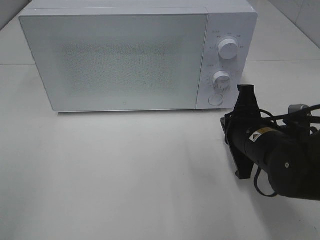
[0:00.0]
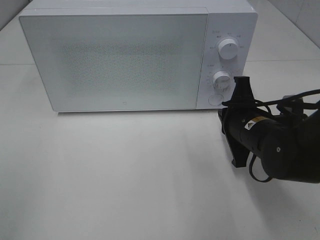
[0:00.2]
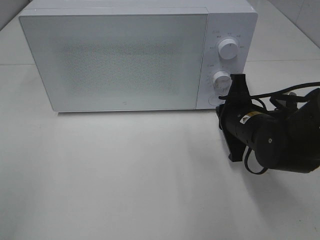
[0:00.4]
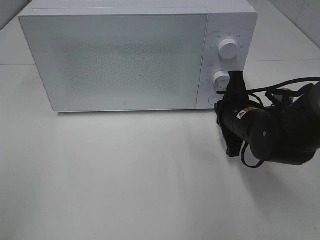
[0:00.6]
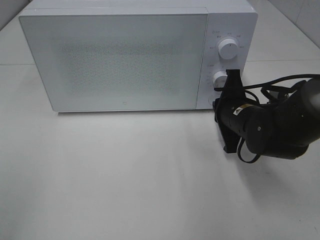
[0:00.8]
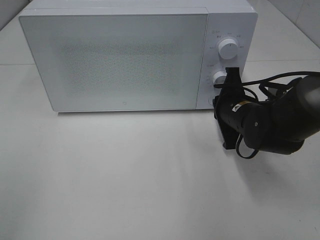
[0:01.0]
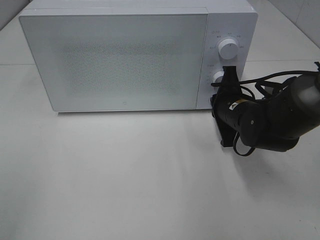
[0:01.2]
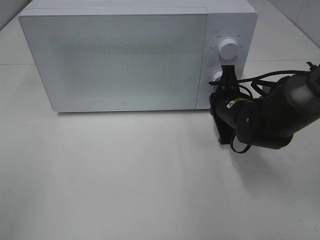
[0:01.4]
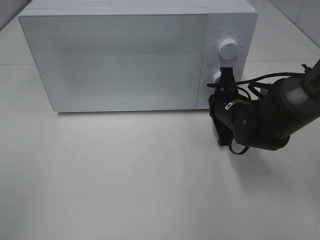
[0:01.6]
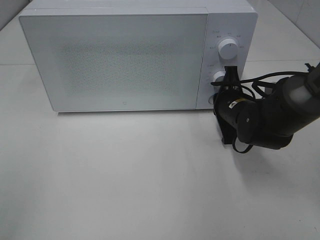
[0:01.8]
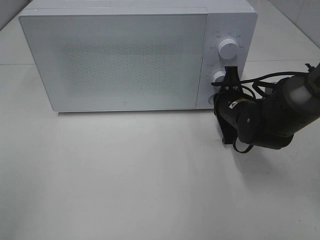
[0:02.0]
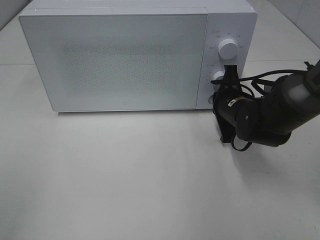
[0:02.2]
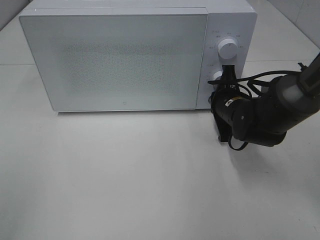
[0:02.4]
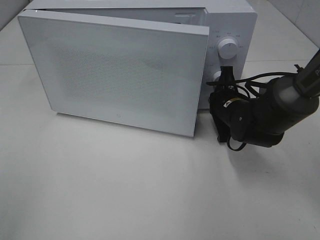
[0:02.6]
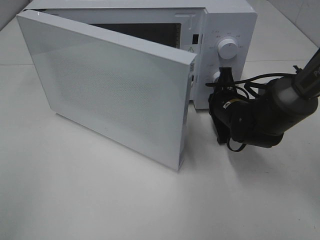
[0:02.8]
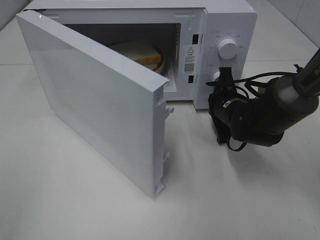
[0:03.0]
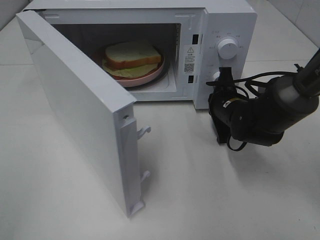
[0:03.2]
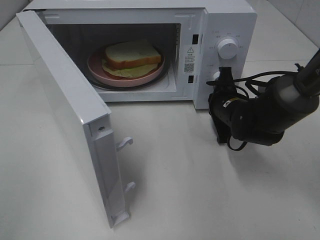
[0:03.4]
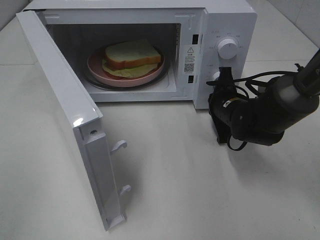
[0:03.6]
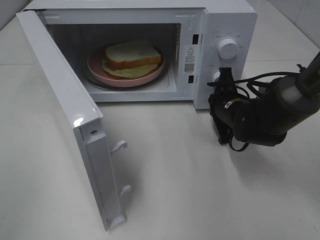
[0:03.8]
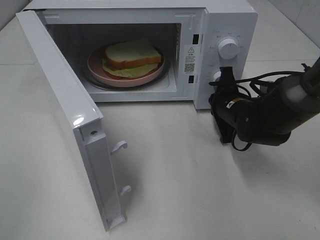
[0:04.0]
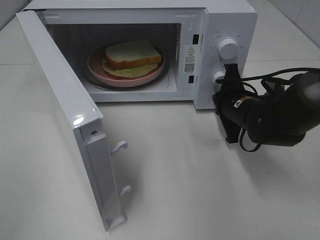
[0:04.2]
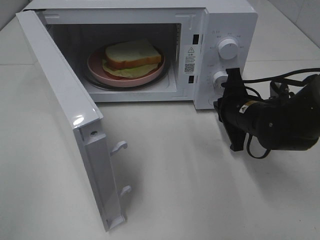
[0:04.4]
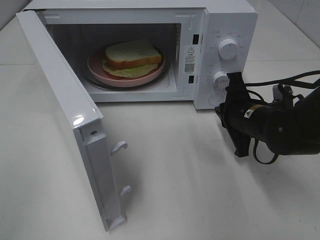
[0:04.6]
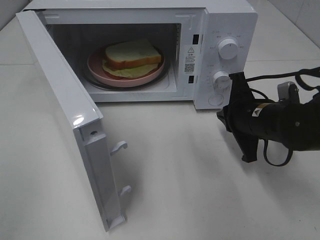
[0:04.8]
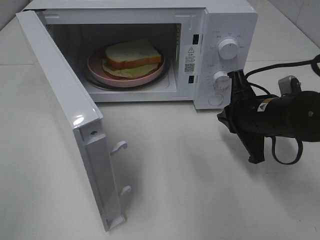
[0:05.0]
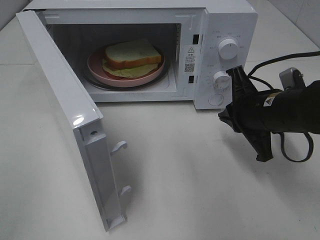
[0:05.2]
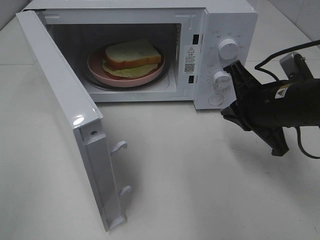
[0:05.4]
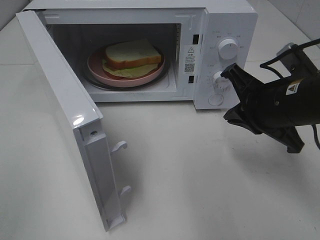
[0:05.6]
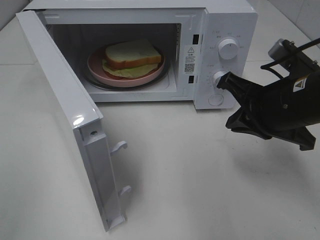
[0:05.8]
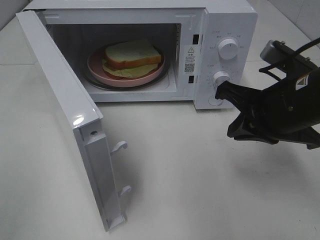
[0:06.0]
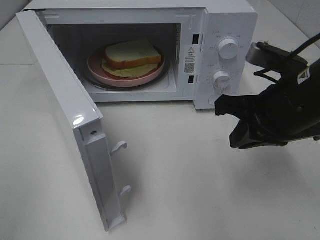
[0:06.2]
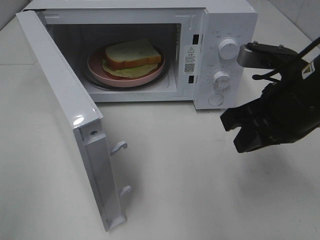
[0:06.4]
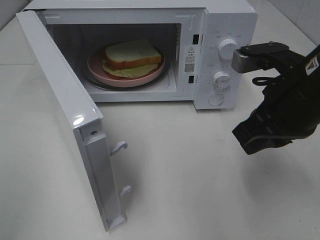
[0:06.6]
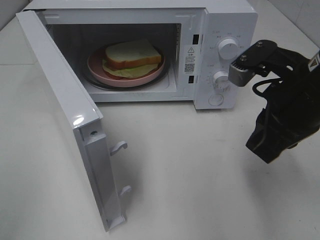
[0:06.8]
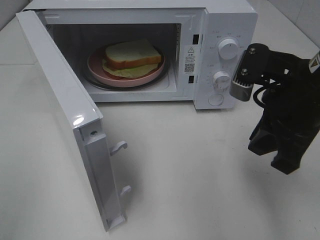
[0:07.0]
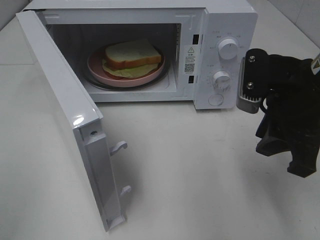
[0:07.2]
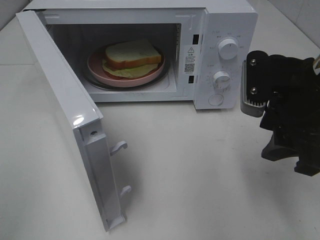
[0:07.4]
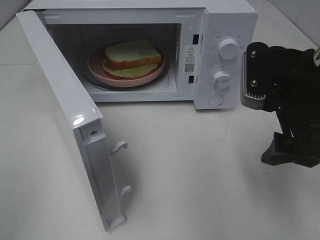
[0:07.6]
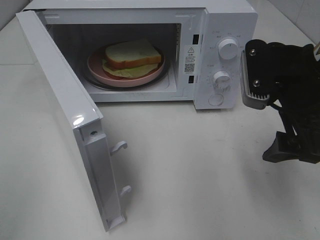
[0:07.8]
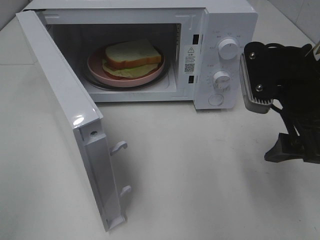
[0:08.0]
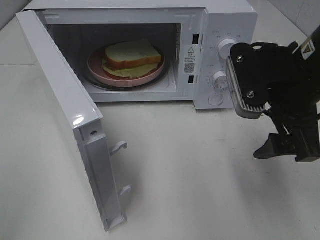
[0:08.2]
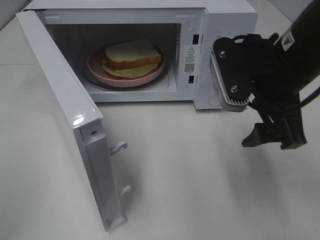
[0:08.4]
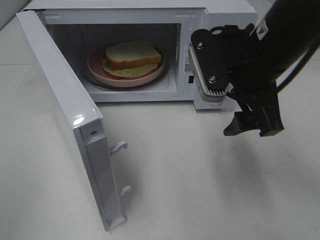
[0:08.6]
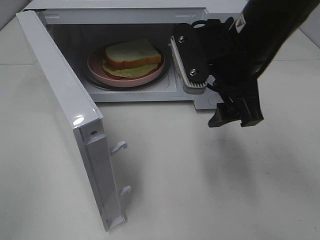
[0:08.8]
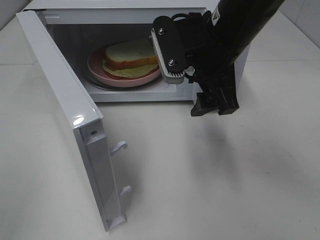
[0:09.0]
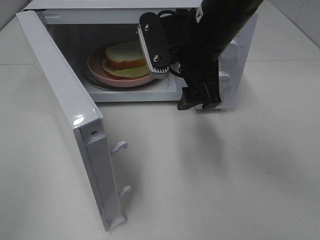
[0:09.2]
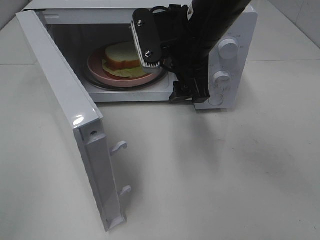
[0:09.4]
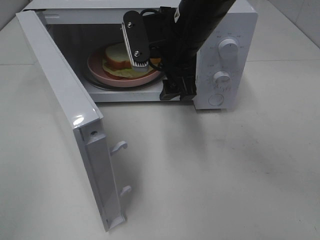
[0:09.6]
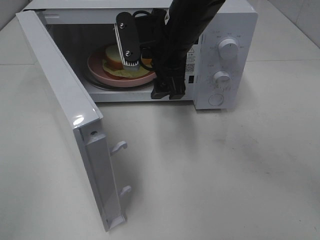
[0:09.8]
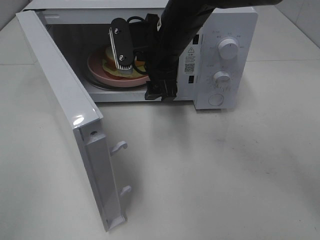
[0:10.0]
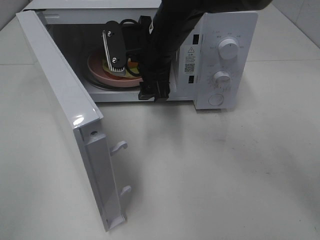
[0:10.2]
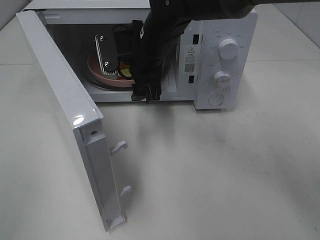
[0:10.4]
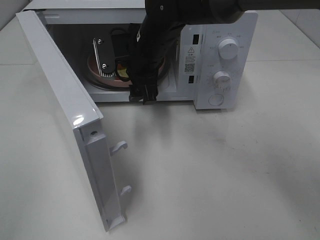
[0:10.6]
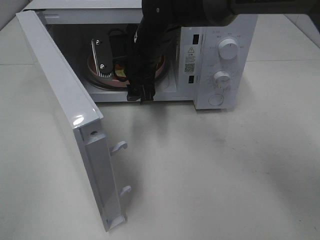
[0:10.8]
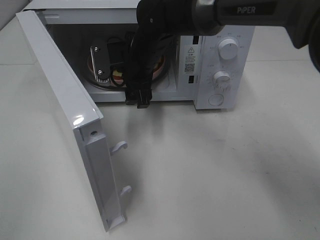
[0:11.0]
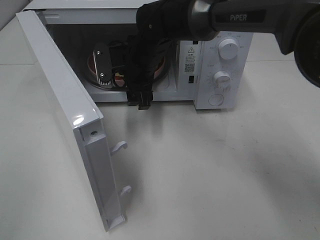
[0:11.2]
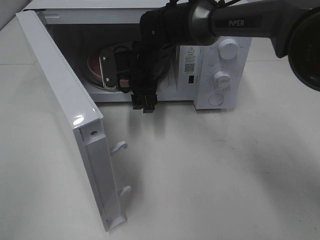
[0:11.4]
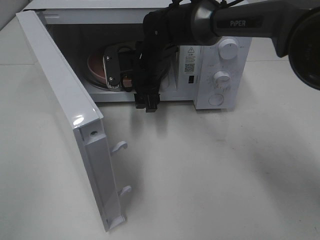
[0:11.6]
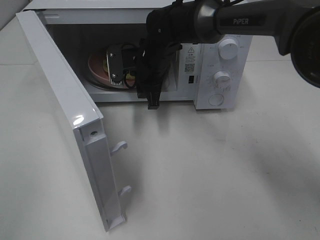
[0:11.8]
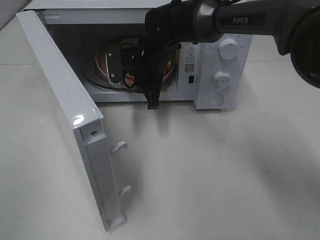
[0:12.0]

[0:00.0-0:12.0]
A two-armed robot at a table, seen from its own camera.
Task of the whole recording: Heat Sandwich.
Step, 0:00.0 to 0:04.4: Right hand: press the switch.
0:00.0 to 0:01.6: The right gripper shifts roughly 10 cm forward.
0:04.4 to 0:06.0: The right gripper moves upward and backward, some 15 cm.
0:06.0 to 0:07.6: The right gripper opens its fingers.
0:07.6 to 0:09.0: The right gripper travels to the left and forward by roughly 10 cm.
0:09.0 to 0:10.4: The right gripper heads forward, to the left and downward, covering about 15 cm.
0:10.4 to 0:12.0: The right gripper travels downward by roughly 5 cm, and closes its fingers.

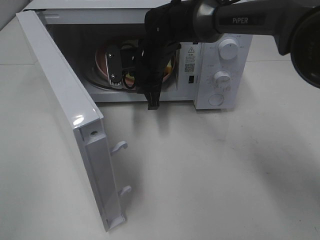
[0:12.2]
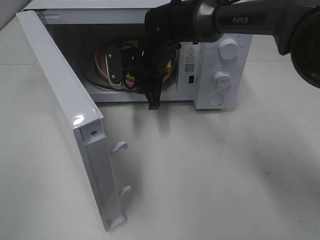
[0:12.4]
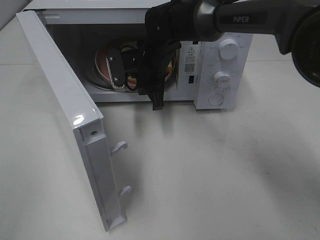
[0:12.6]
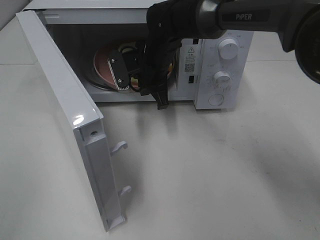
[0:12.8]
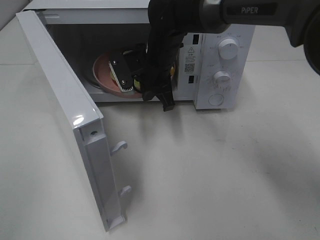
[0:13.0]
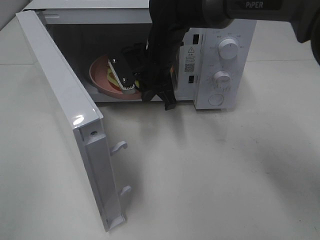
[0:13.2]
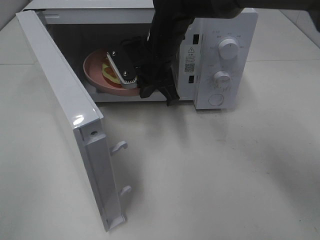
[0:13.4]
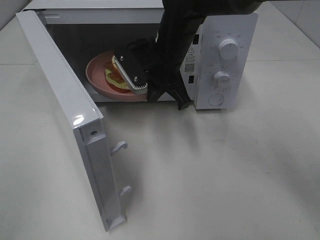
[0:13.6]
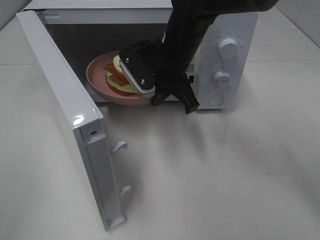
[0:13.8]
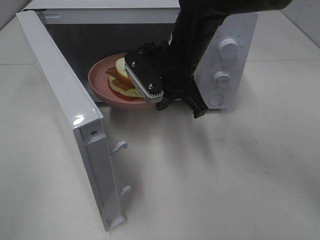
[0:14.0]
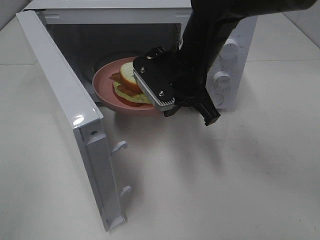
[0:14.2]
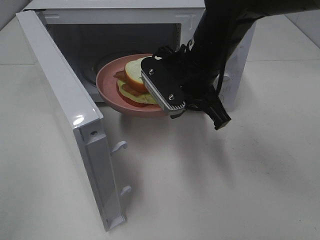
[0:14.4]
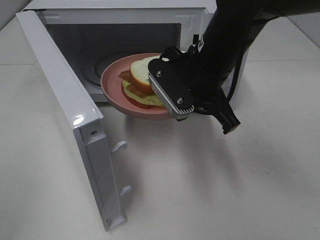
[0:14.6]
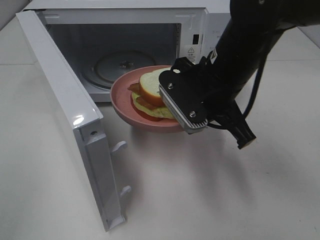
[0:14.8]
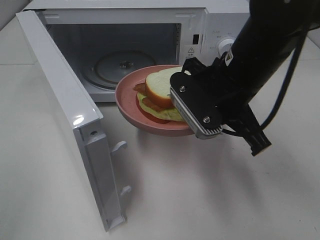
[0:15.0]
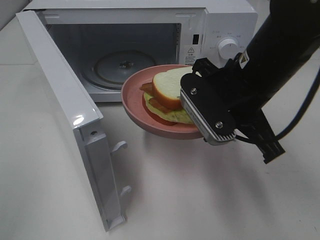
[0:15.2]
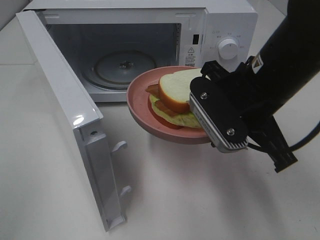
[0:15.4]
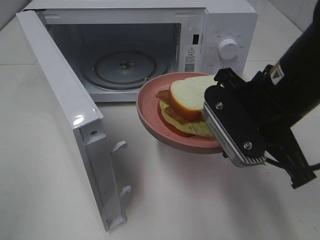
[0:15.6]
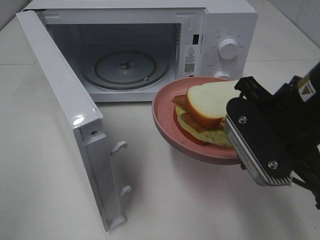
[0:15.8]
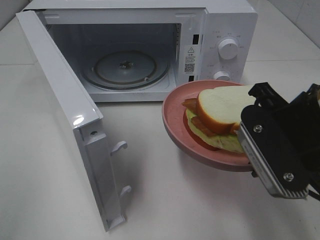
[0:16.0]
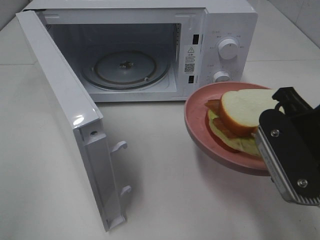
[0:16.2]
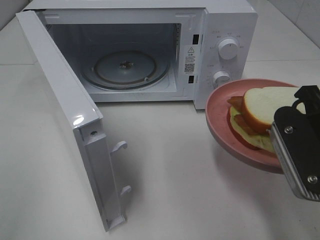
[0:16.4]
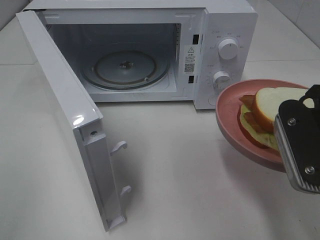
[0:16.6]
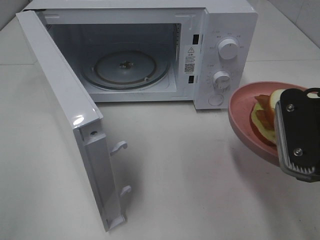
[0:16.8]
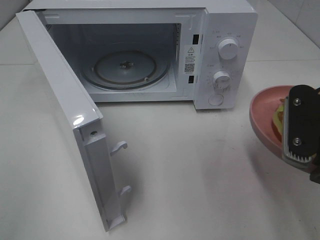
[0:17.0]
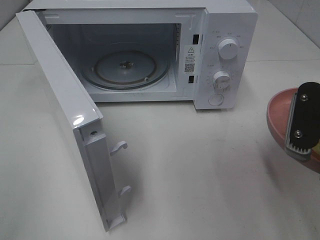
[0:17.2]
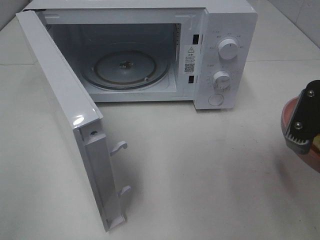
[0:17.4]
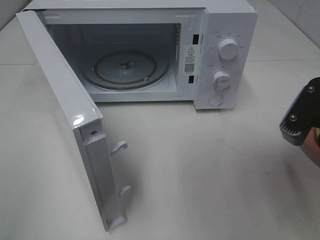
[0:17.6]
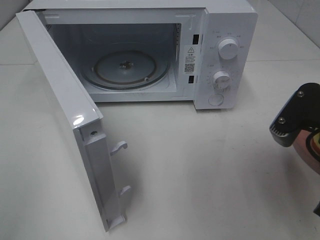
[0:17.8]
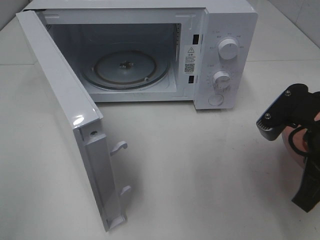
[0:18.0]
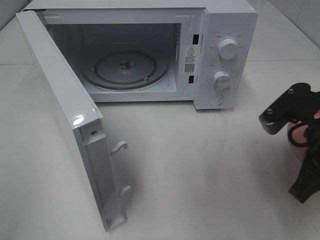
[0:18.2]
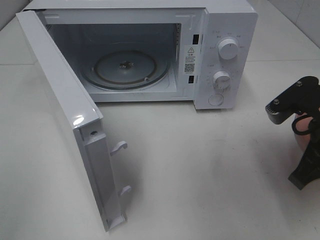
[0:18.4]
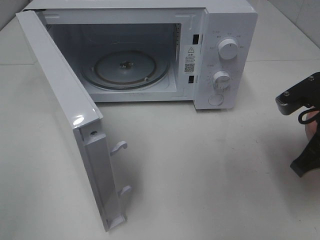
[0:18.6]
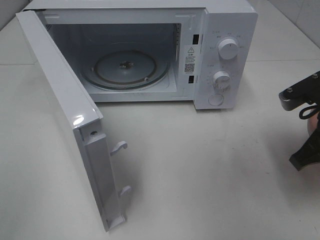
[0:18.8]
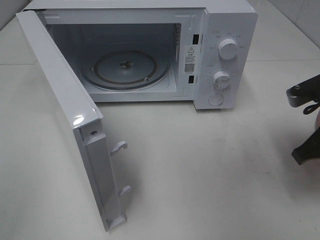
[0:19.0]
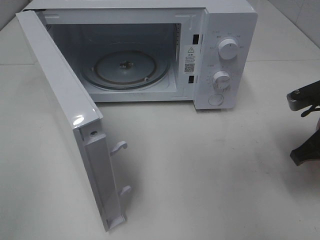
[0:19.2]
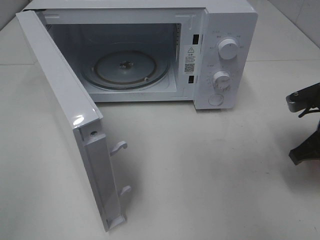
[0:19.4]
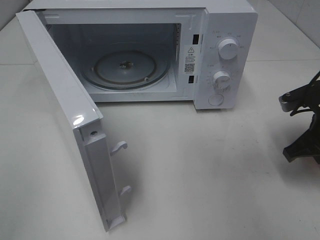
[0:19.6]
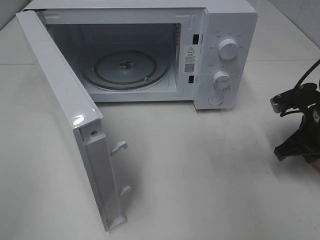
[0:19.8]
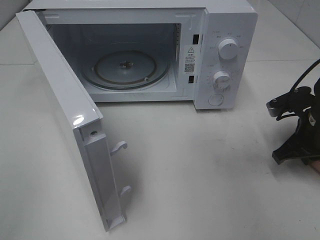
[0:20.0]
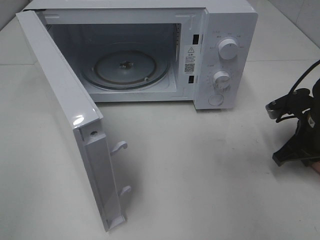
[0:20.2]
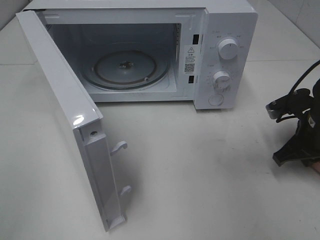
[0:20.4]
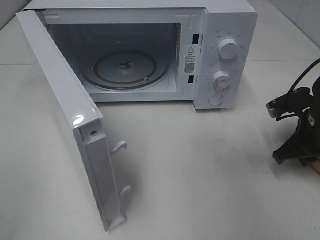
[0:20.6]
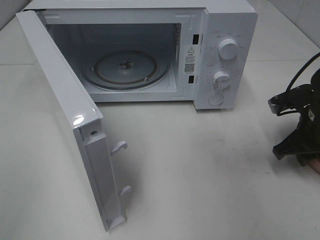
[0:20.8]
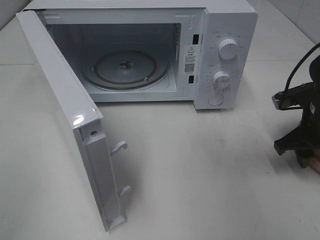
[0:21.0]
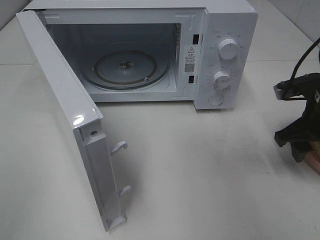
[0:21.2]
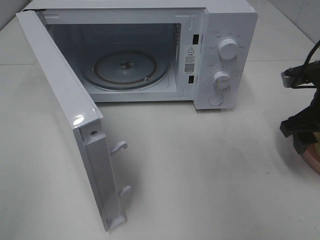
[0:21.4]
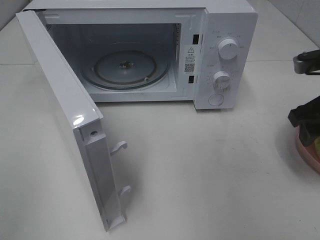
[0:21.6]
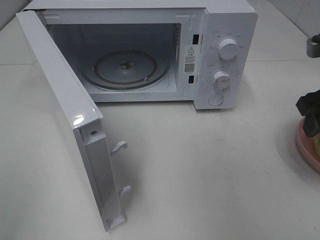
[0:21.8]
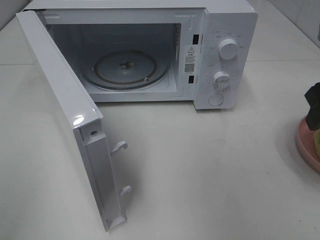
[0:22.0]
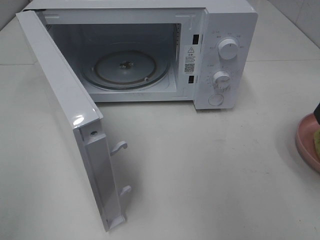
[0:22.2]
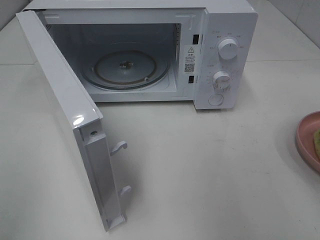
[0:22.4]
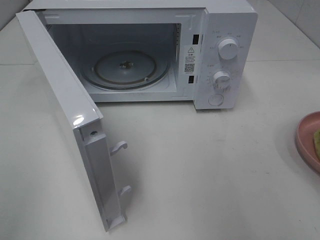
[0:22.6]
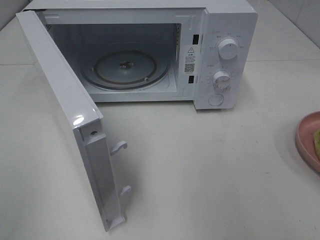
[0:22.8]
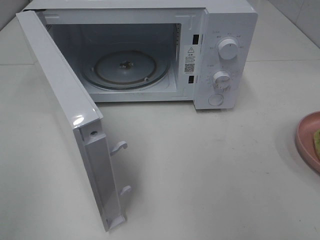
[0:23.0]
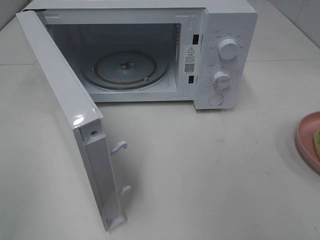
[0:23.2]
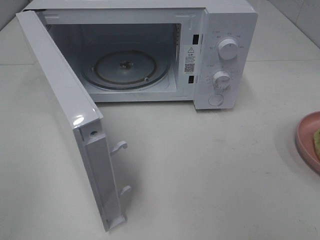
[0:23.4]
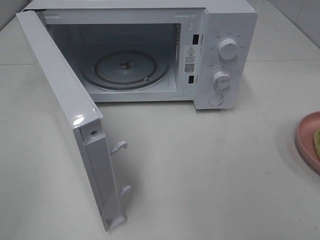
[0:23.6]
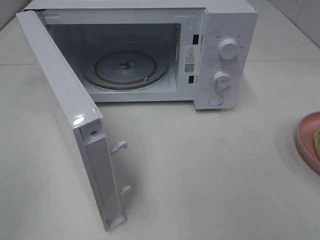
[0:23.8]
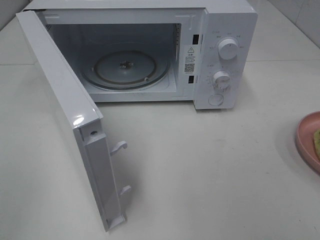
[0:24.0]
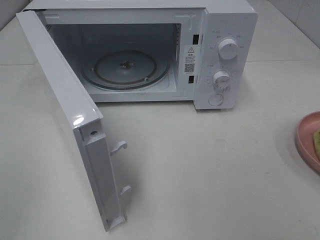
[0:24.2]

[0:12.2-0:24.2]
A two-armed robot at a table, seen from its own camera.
Task of the whole recording: Heat Sandwich.
Step, 0:12.6 to 0:21.0: Right hand: place the plate on the table.
0:12.2 to 0:13.8: The right gripper travels backward and upward by approximately 10 cm.
0:13.8 to 0:15.2: The right gripper is displaced backward and to the right by approximately 15 cm.
0:15.2 to 0:16.6: The right gripper heads backward and to the right, covering some 10 cm.
0:16.6 to 0:18.2: The right gripper moves roughly 5 cm.
0:18.2 to 0:19.8: The right gripper shifts some 15 cm forward, downward and to the right.
0:19.8 to 0:21.2: The right gripper opens.
0:21.2 to 0:22.6: The right gripper shifts approximately 20 cm upward and backward.
